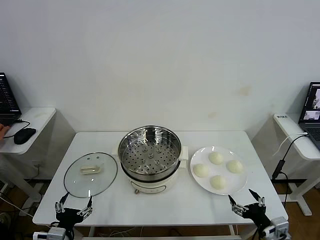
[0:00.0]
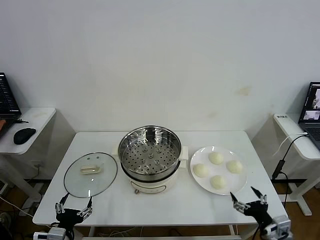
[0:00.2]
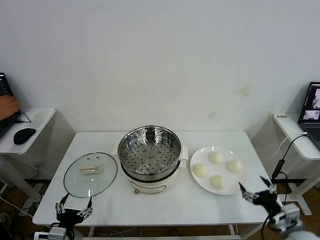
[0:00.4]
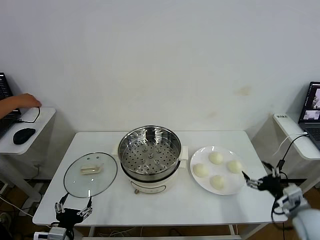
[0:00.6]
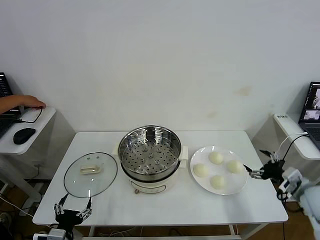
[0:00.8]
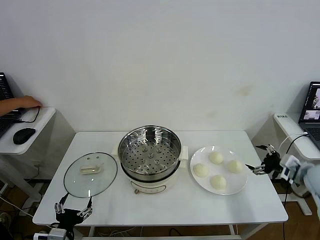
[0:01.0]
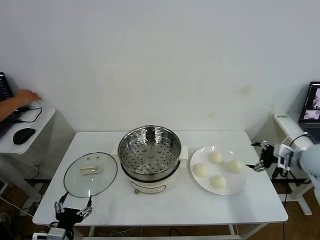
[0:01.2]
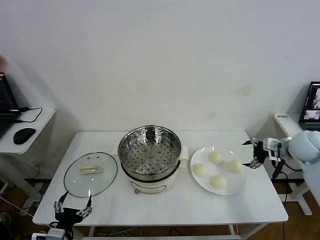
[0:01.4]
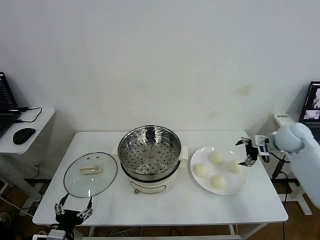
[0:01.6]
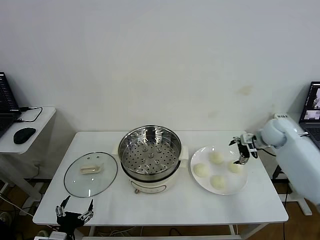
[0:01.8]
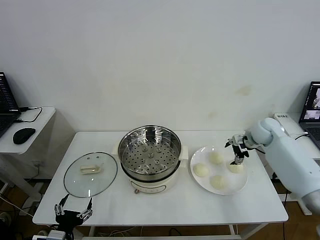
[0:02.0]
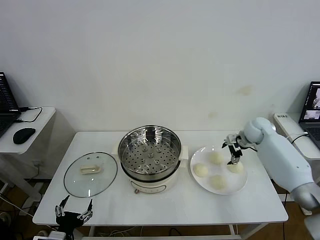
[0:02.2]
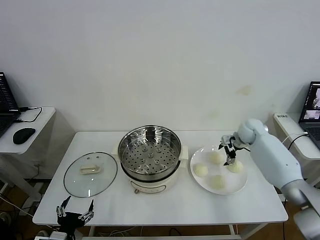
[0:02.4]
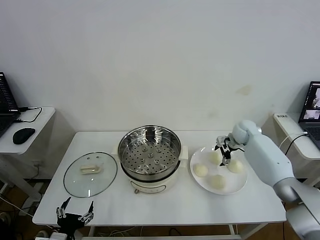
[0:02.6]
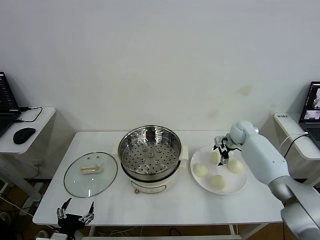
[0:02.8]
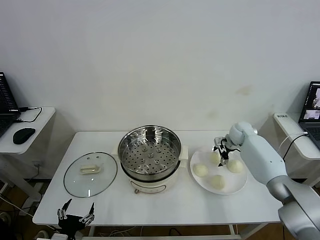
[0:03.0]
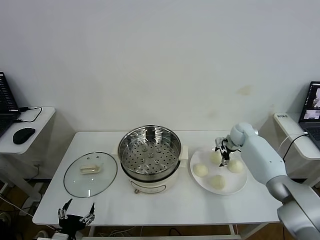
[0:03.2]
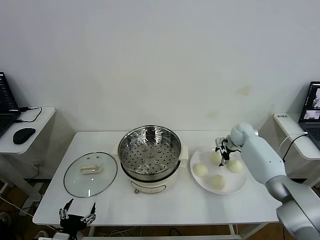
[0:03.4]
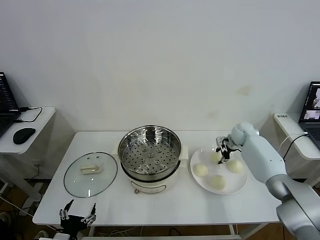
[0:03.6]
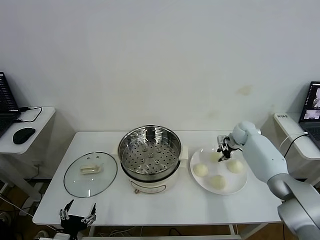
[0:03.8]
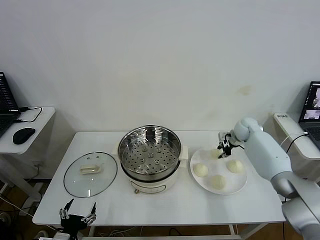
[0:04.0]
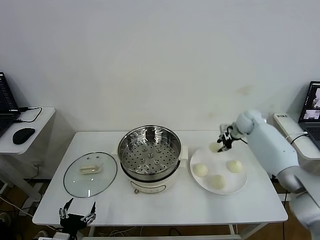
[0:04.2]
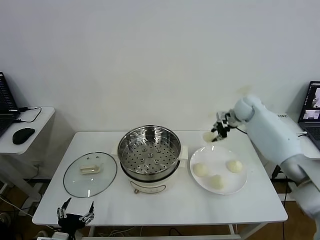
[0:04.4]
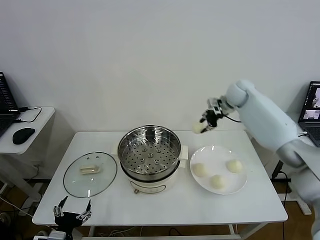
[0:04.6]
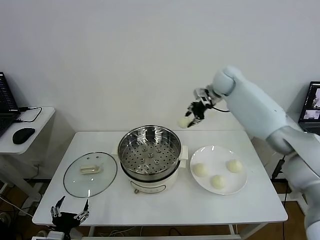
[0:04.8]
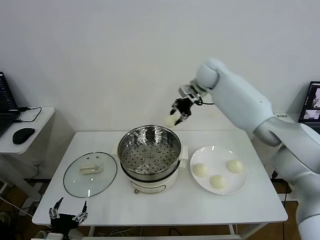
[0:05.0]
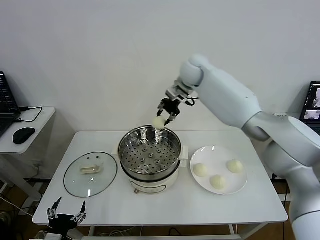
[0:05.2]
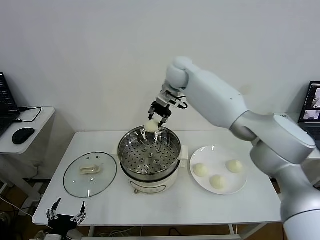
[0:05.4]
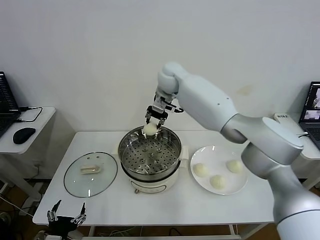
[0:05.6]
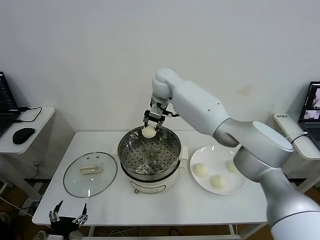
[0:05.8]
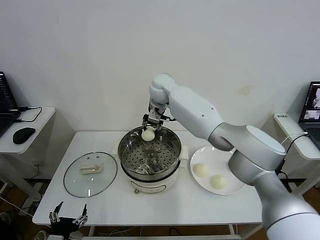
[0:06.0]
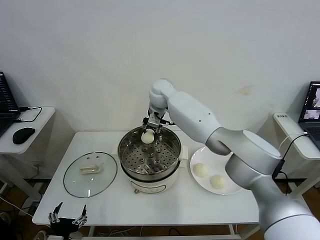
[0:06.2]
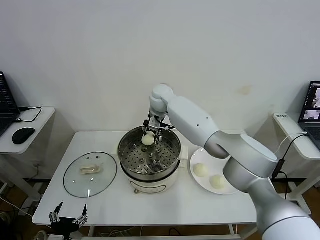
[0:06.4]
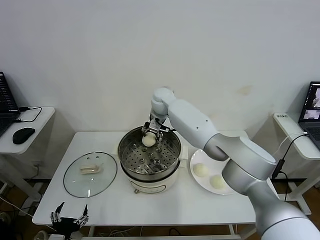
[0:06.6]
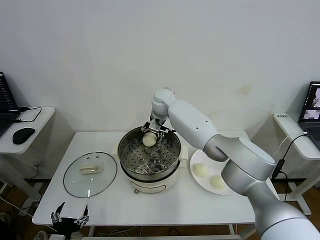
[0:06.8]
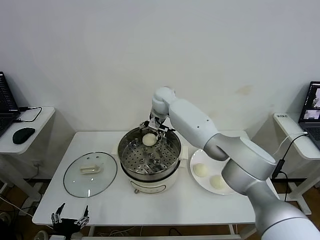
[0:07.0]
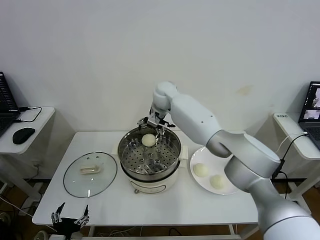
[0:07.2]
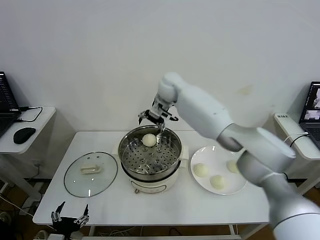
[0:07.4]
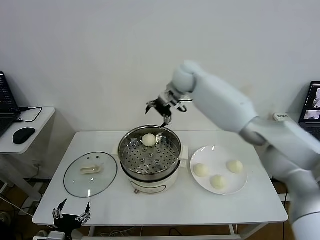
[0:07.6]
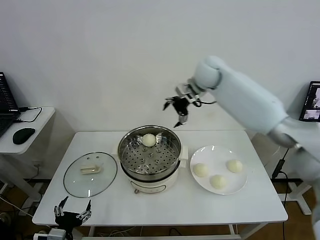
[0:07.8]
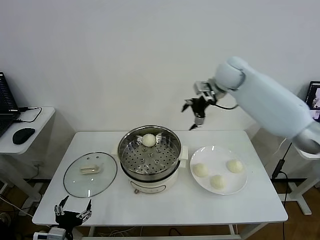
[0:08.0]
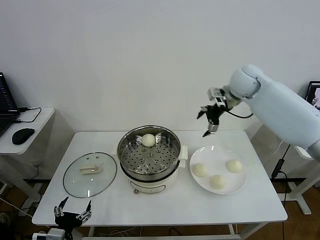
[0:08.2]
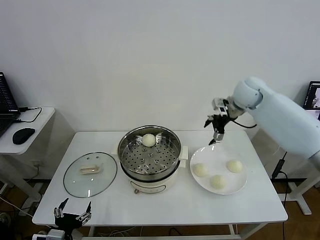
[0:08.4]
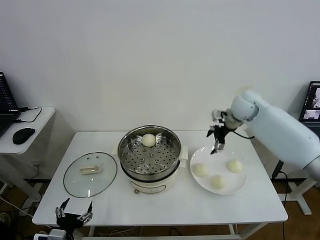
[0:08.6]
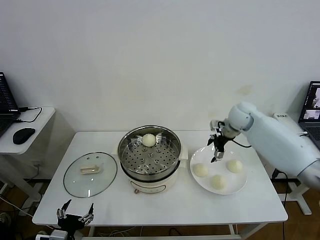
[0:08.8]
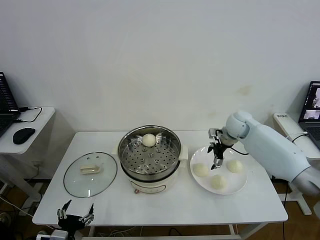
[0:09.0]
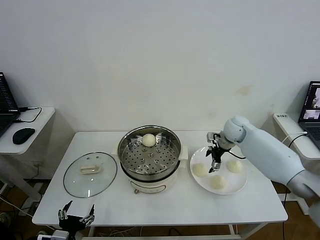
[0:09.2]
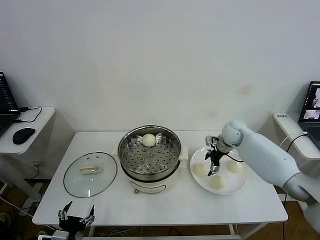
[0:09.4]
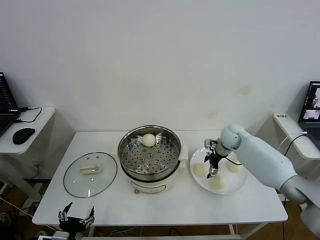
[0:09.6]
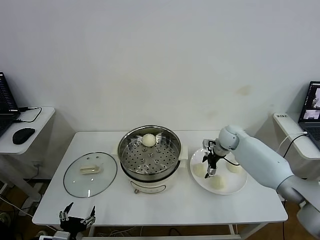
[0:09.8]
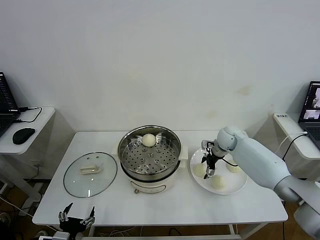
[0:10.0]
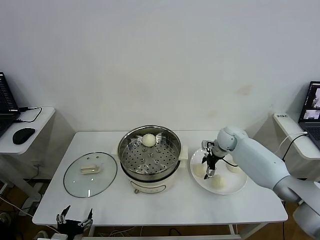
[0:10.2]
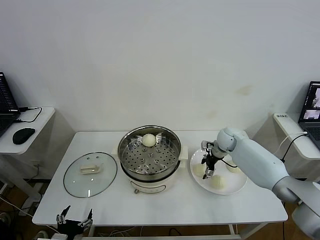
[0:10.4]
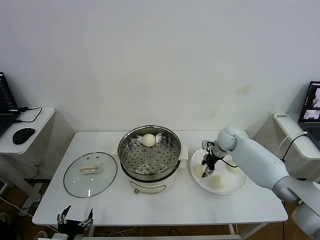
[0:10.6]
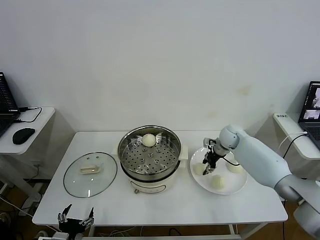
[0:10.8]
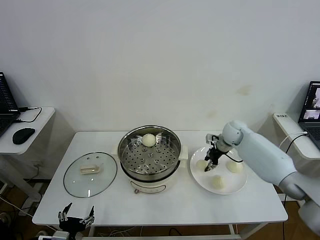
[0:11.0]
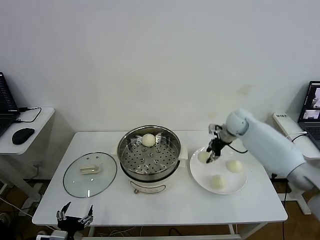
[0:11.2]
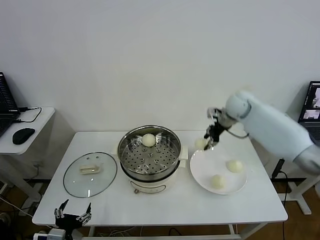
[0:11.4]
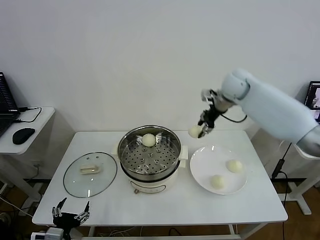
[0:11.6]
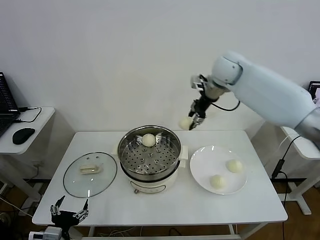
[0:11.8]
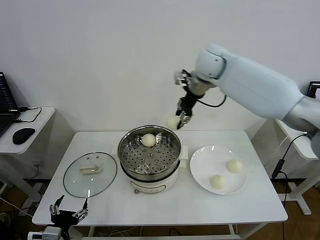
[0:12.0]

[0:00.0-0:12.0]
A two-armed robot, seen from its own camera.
Step, 0:00.0 to 0:03.4: Grasp the baozi in the plate with right gripper.
Step, 0:03.6 to 0:06.8: Place the baozi on the steamer with right gripper.
Step, 0:07.0 to 0:10.4: Grasp the baozi in the plate with right gripper.
0:01.6 to 0:03.0: The right gripper travels forward, downward and to the left by roughly 15 cm.
0:03.0 to 0:04.4: The right gripper moves upward, roughly 15 cm, and closes its fingers.
0:04.4 to 0:06.0: The right gripper moves to the left, roughly 30 cm.
0:06.0 to 0:07.6: The right gripper shifts roughly 15 cm to the right and upward, and opens its fingers.
0:07.6 to 0:09.0: The right gripper goes some 25 cm downward and to the right.
0:09.0 to 0:10.4: The right gripper shifts approximately 10 cm downward.
0:10.4 to 0:12.0: The right gripper is displaced upward and to the left by approximately 35 cm, and closes.

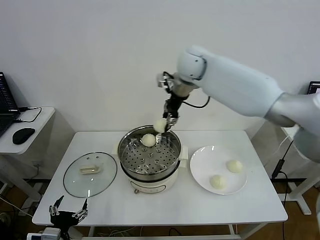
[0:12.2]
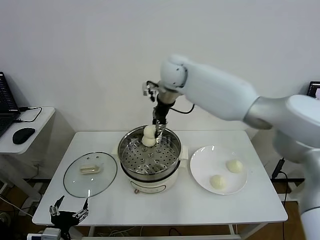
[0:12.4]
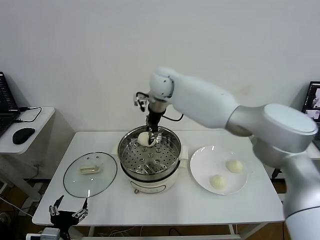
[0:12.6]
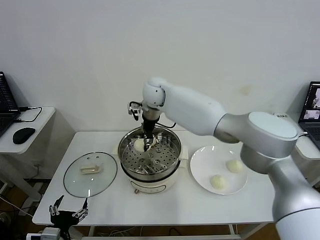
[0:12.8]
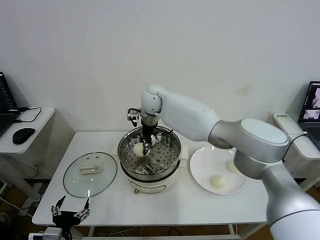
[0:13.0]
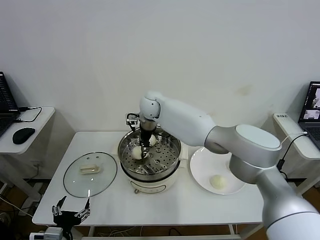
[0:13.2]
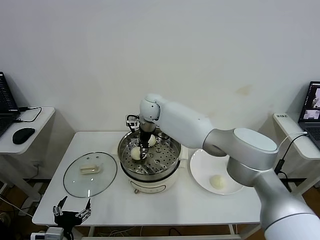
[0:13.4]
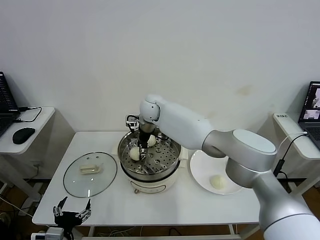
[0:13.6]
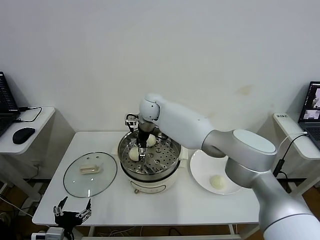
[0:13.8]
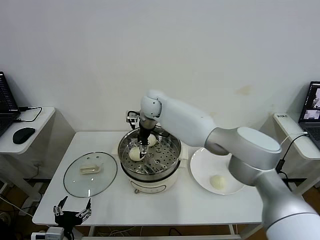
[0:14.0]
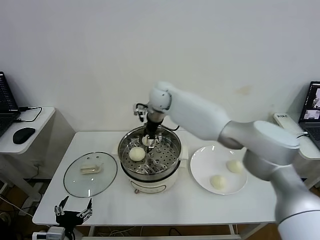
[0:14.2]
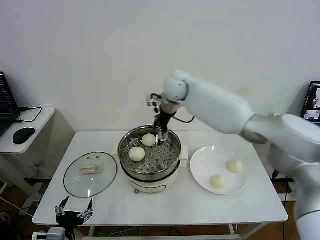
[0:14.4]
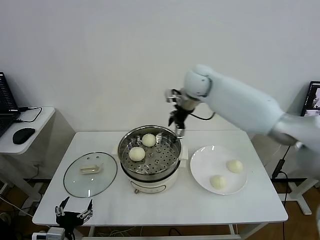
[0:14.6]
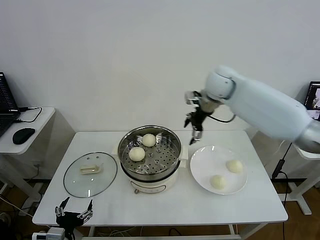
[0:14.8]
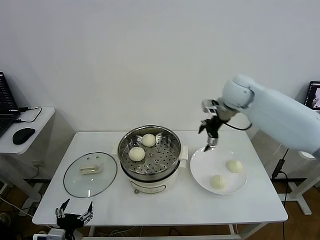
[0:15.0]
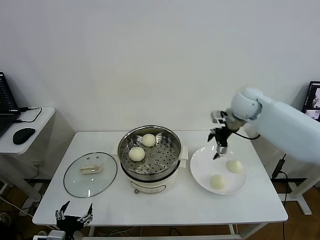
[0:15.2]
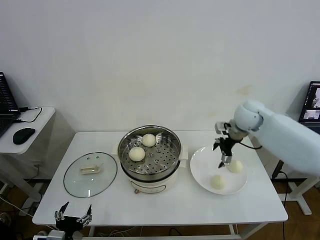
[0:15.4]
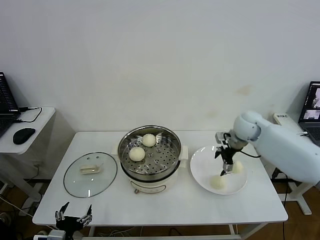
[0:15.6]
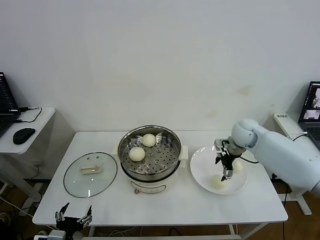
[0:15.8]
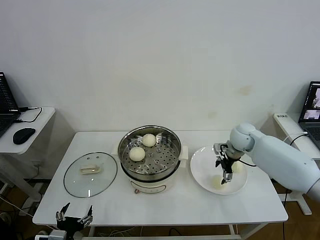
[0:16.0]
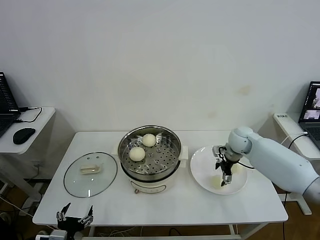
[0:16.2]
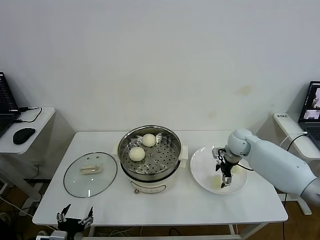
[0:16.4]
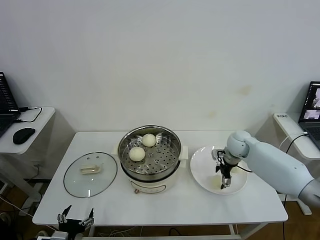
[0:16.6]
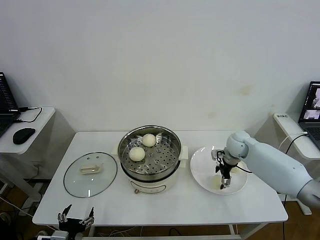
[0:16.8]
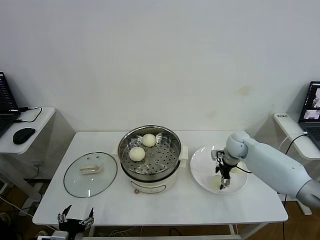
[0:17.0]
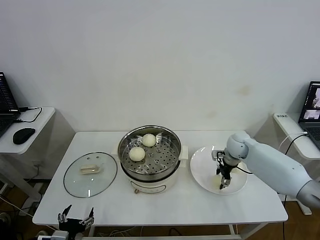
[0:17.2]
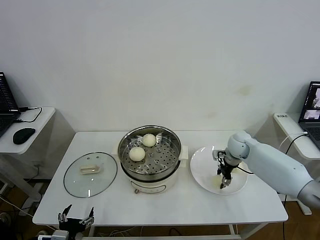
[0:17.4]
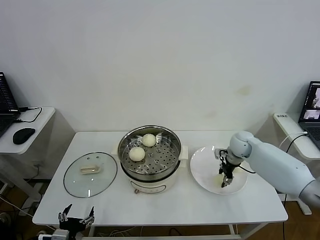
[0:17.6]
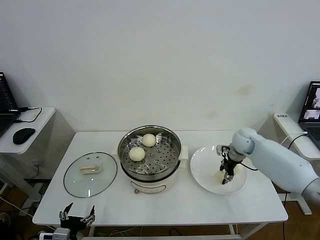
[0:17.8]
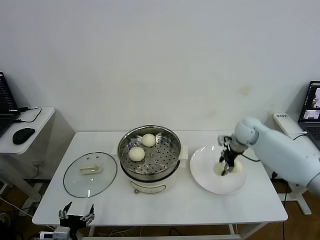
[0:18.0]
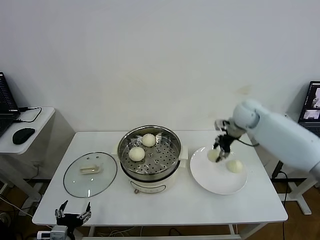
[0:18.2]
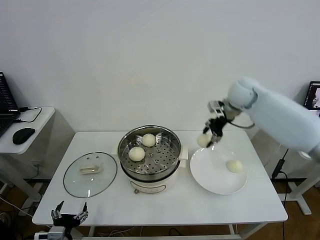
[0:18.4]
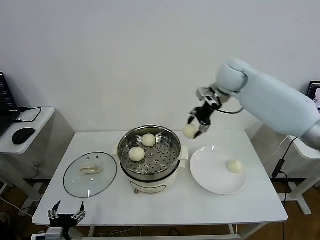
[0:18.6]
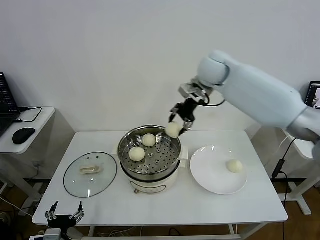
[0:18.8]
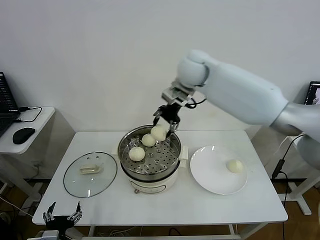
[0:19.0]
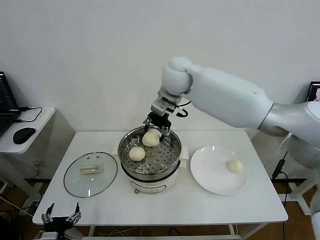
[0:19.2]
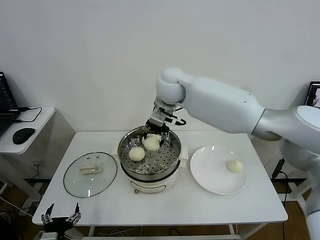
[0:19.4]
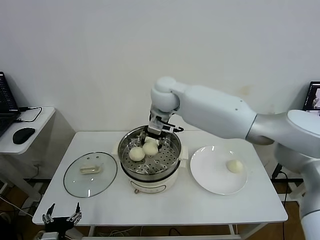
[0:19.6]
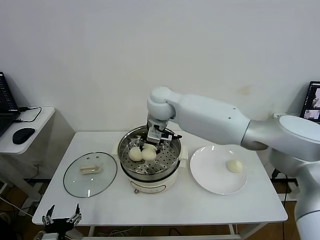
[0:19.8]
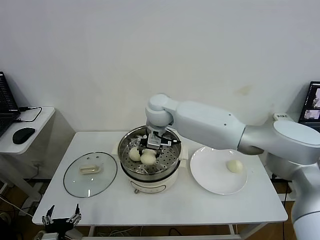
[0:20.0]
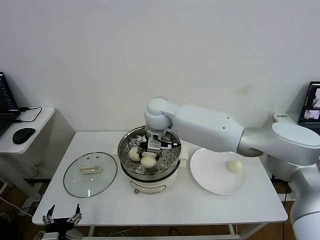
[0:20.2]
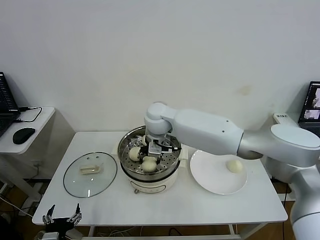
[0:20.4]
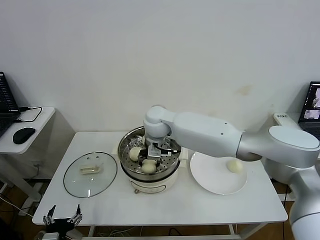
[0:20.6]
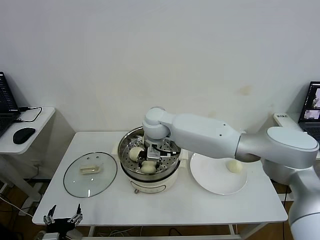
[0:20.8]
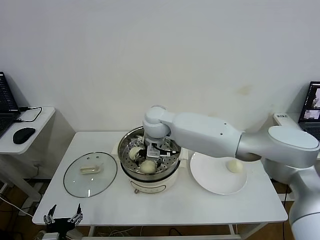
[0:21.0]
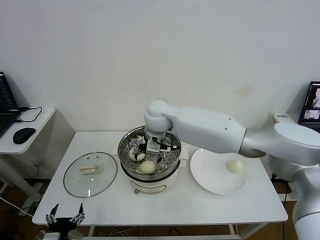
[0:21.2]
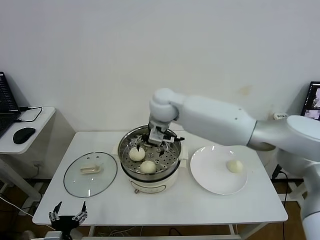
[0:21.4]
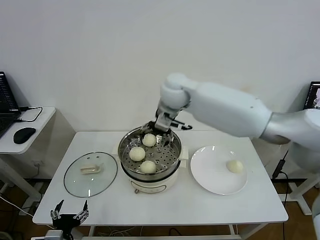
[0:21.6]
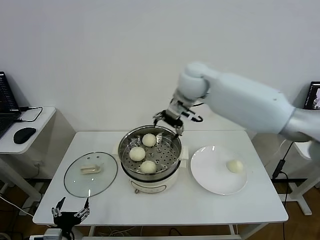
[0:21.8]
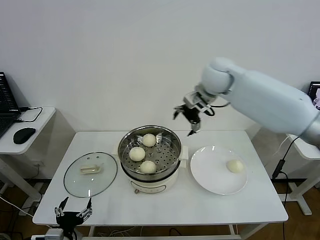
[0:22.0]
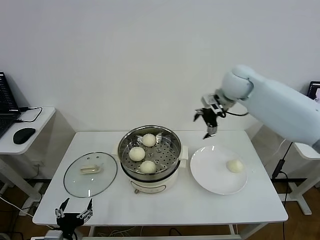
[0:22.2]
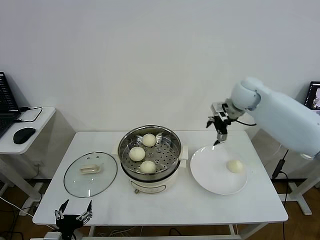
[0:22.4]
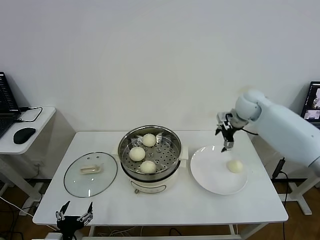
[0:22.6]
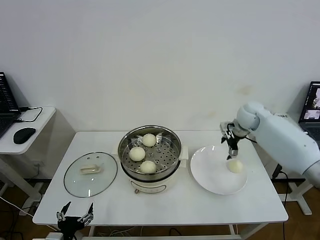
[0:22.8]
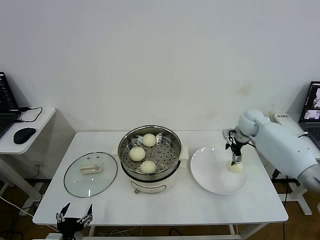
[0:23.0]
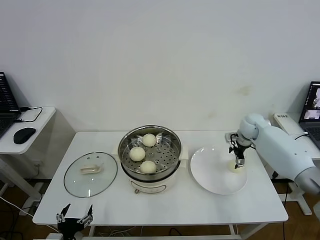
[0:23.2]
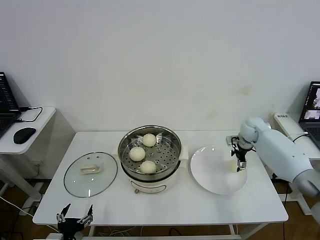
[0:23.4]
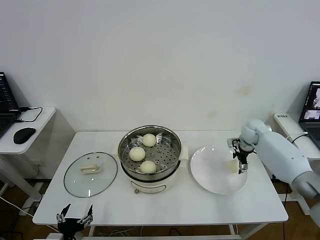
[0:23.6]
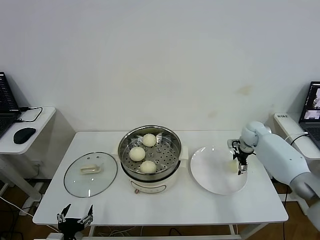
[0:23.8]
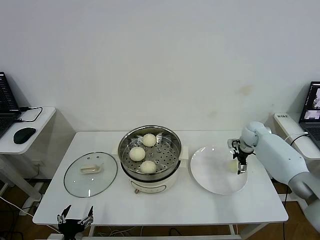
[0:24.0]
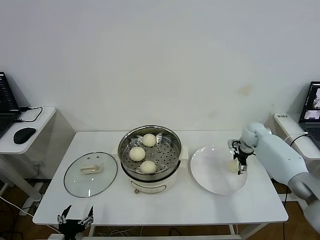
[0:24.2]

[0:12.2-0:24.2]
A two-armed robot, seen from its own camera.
Step, 0:13.8 to 0:17.0: Grasp the baozi in the plate with right gripper.
Step, 0:17.4 to 0:21.0: Place the baozi on the steamer with right gripper.
0:12.2 to 0:13.8: The right gripper is displaced downward and to the left by about 20 cm, and opens up.
0:13.8 to 0:15.2: The right gripper goes some 30 cm to the right.
0:15.2 to 0:16.6: The right gripper is displaced downward by about 15 cm.
0:16.6 to 0:18.2: The right gripper goes roughly 15 cm upward, and closes its fingers.
0:18.2 to 0:19.8: The right gripper shifts approximately 30 cm to the left.
0:19.8 to 0:21.2: The right gripper opens its fingers.
0:21.2 to 0:22.6: The right gripper heads to the right, covering approximately 30 cm.
0:22.6 to 0:24.2: The right gripper shifts roughly 15 cm downward and to the right.
